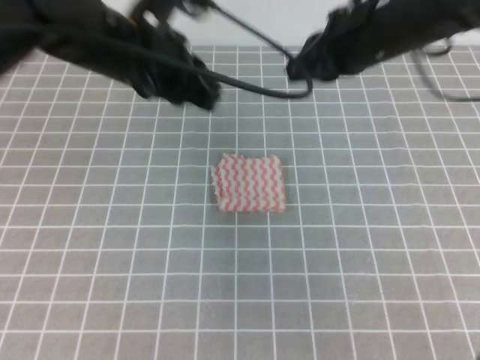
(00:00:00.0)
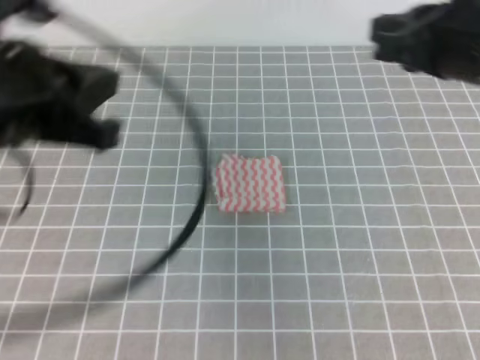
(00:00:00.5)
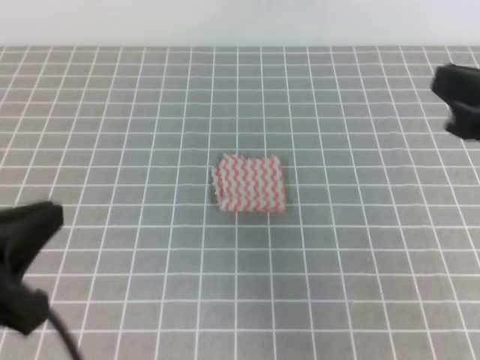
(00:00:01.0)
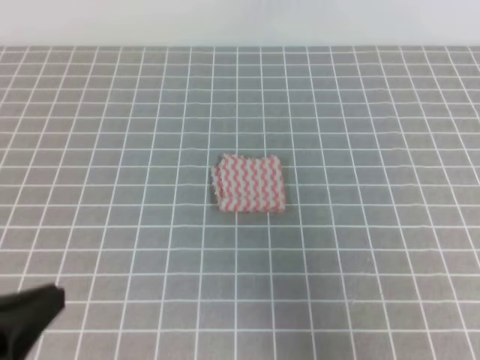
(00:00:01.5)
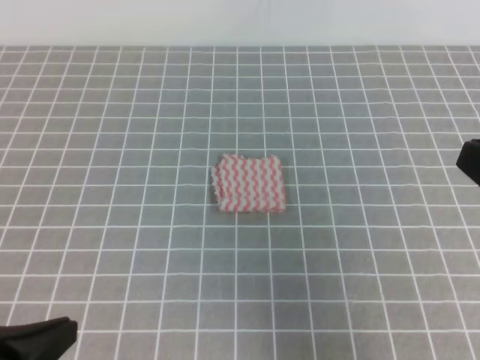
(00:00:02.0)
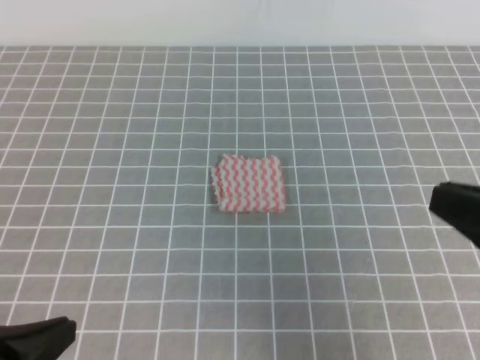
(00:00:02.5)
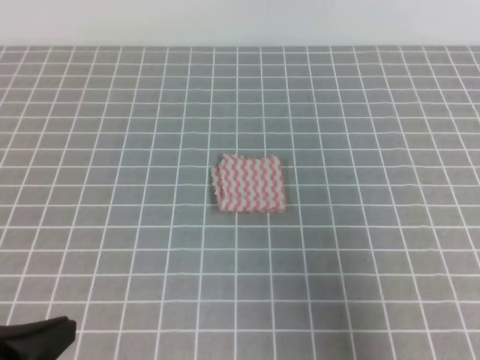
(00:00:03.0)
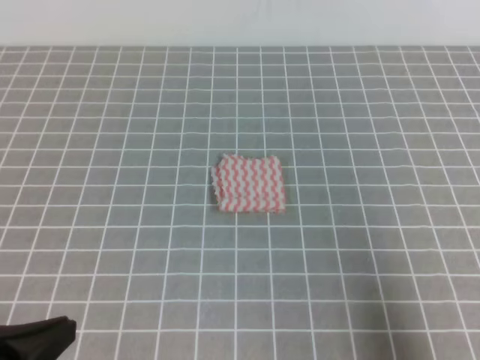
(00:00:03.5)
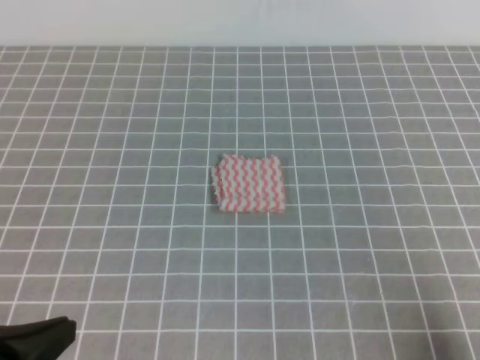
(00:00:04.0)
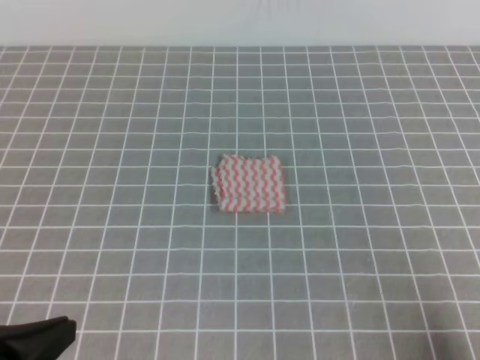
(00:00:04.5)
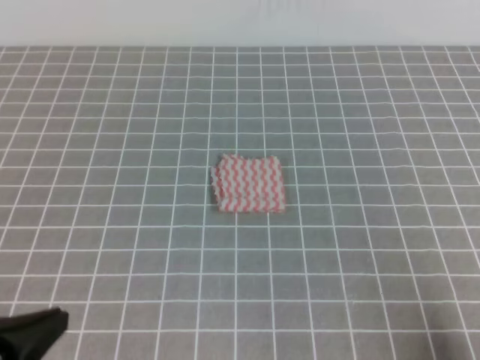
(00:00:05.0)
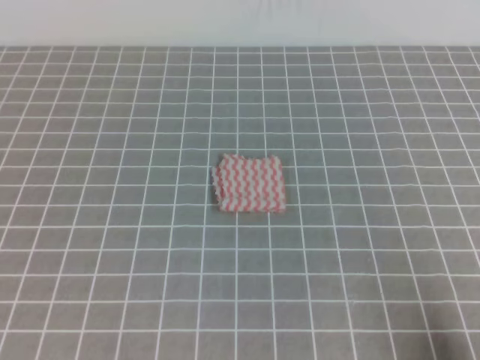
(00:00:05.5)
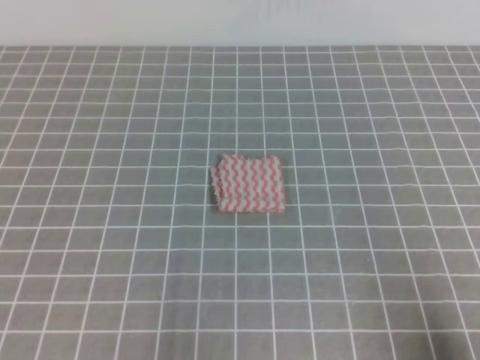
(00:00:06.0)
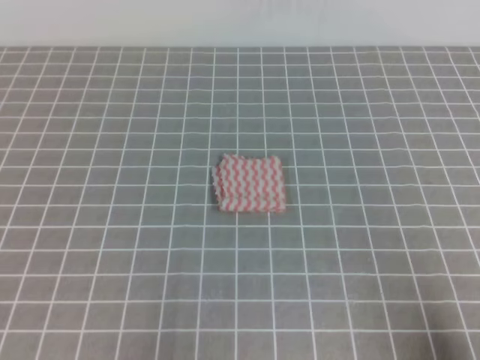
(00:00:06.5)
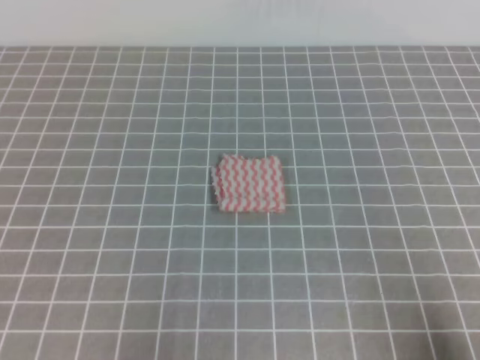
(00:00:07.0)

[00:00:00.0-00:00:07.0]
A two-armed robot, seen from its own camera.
Step, 00:00:00.0 to 00:00:07.0: Fold the towel.
00:00:00.0 to 00:00:02.0: The right gripper moves backward and to the right, about 25 cm, while the left gripper moves backward and to the left, approximately 30 cm.
00:00:02.0 to 00:00:03.5: The right gripper shifts about 15 cm downward, backward and to the right.
00:00:03.5 to 00:00:05.0: The right gripper heads downward, covering roughly 5 cm.
00:00:05.0 to 00:00:07.0: The left gripper heads downward, covering some 10 cm.
